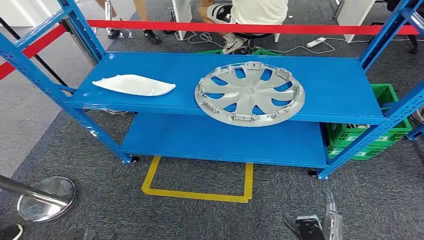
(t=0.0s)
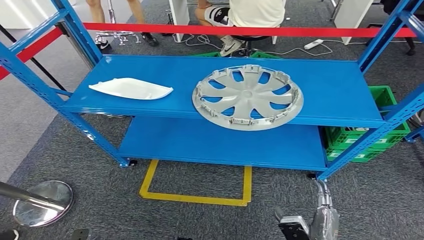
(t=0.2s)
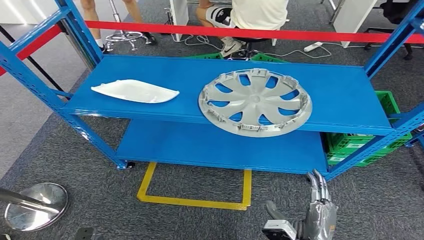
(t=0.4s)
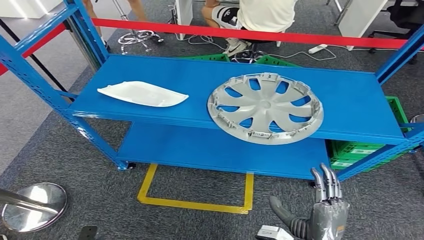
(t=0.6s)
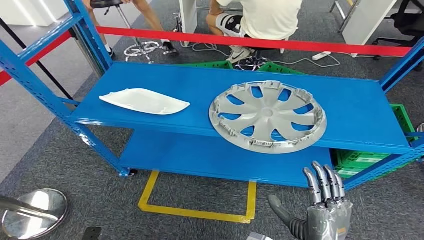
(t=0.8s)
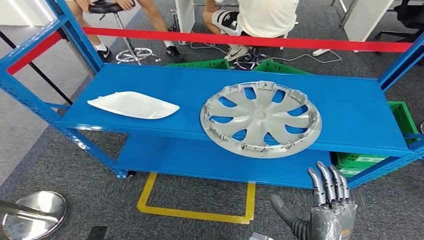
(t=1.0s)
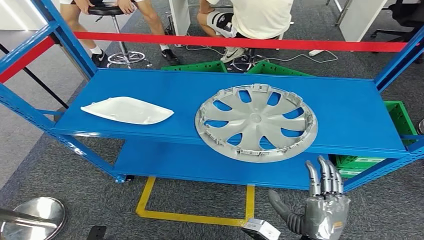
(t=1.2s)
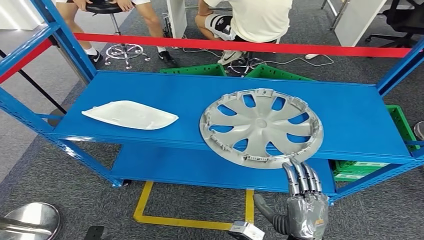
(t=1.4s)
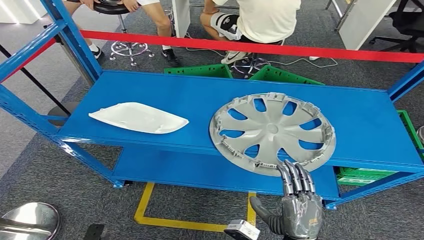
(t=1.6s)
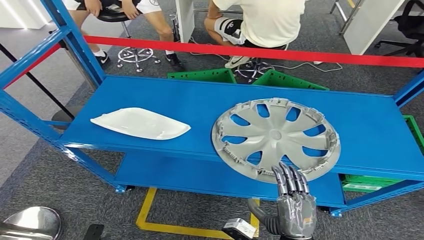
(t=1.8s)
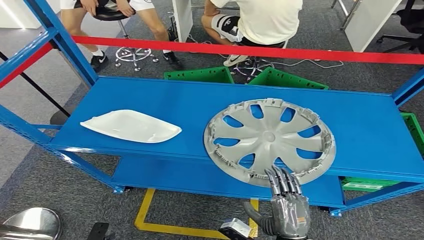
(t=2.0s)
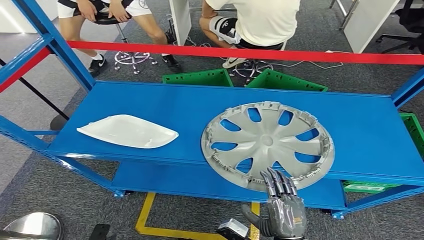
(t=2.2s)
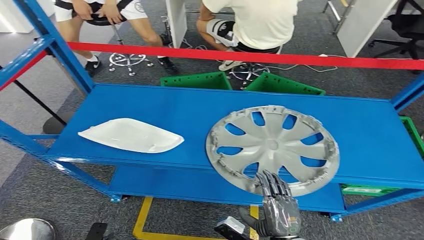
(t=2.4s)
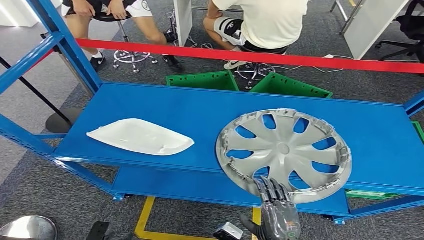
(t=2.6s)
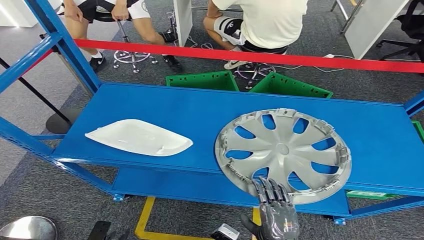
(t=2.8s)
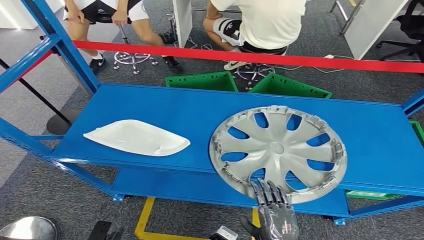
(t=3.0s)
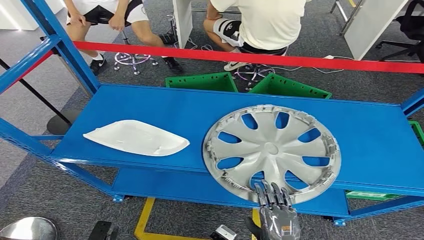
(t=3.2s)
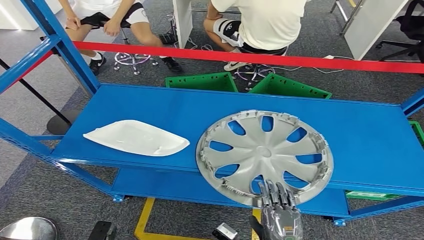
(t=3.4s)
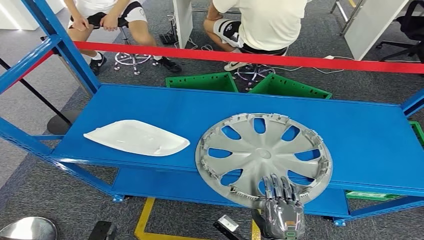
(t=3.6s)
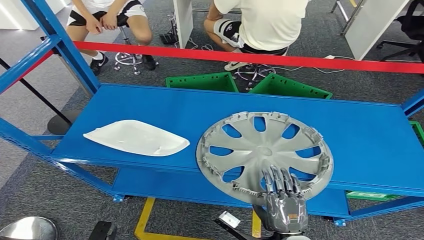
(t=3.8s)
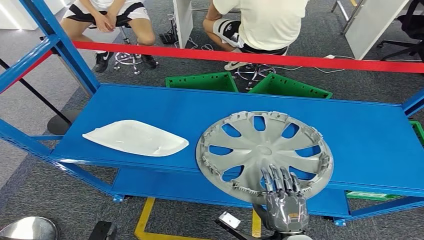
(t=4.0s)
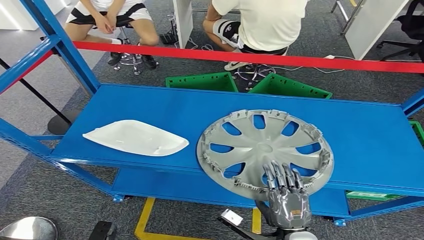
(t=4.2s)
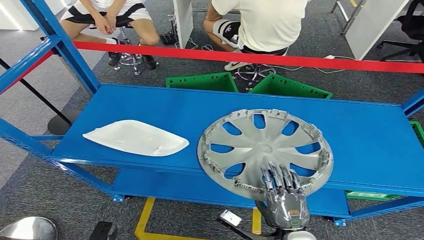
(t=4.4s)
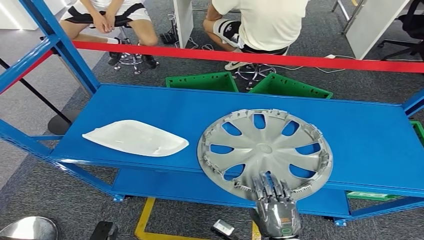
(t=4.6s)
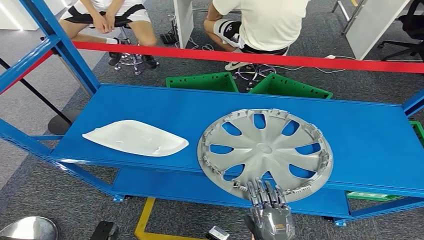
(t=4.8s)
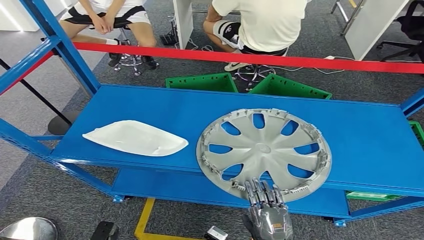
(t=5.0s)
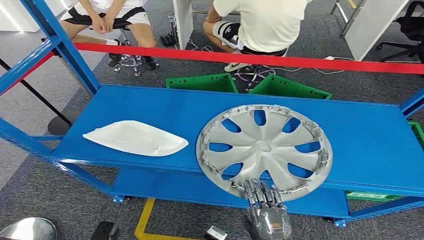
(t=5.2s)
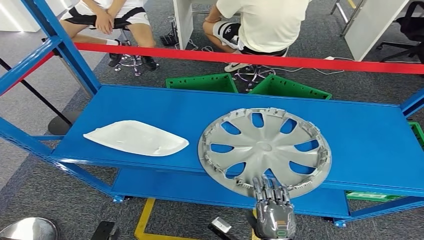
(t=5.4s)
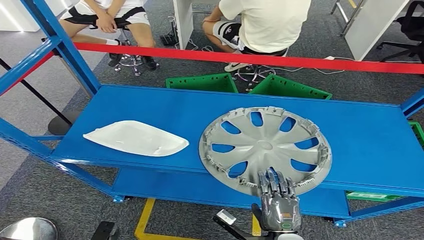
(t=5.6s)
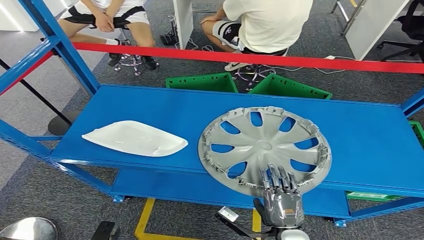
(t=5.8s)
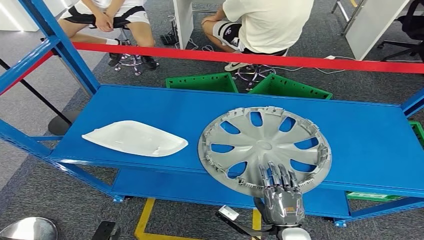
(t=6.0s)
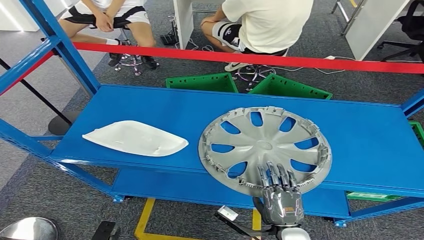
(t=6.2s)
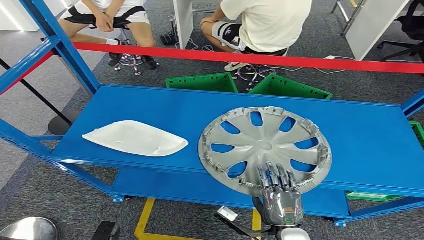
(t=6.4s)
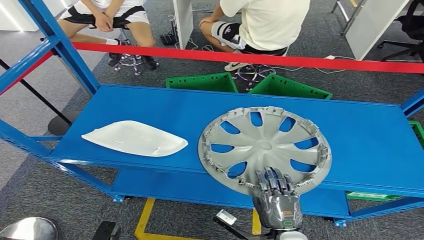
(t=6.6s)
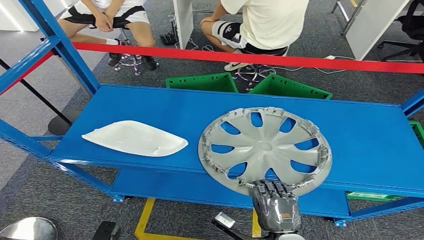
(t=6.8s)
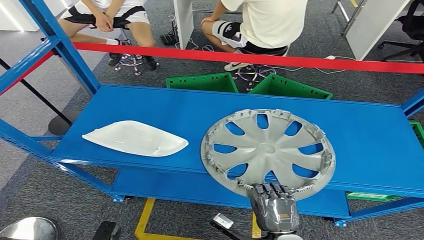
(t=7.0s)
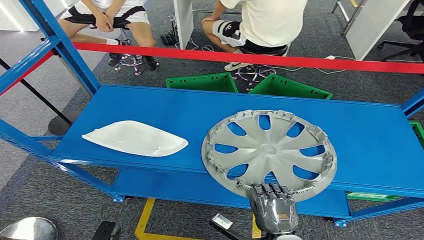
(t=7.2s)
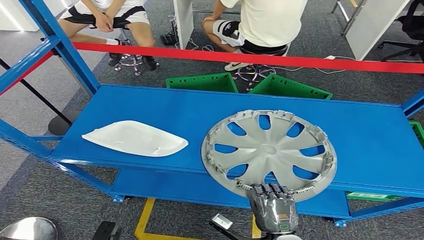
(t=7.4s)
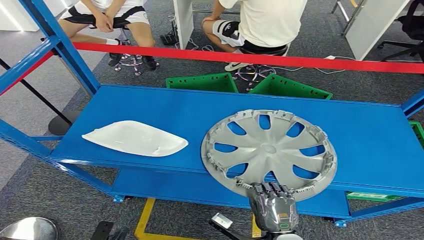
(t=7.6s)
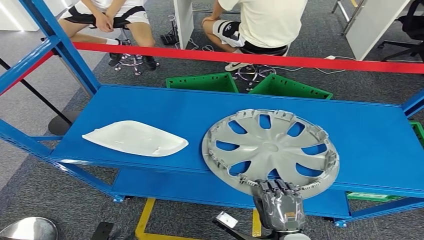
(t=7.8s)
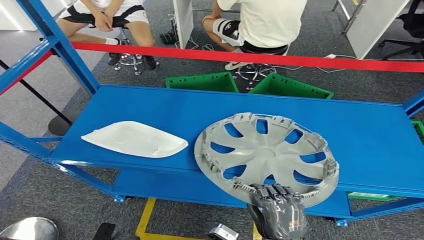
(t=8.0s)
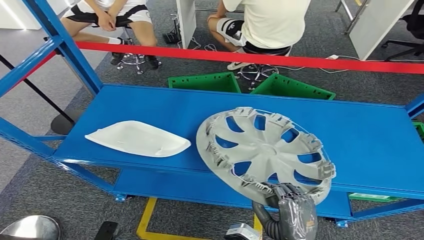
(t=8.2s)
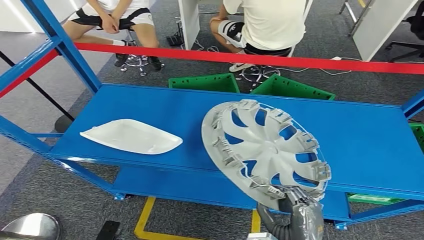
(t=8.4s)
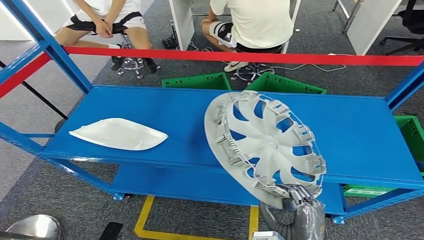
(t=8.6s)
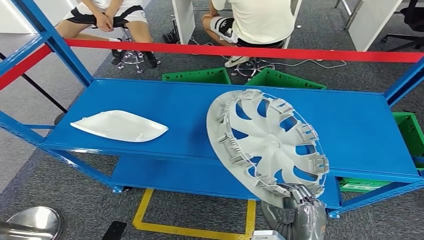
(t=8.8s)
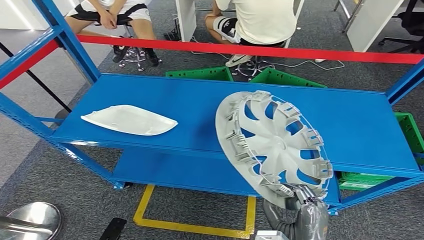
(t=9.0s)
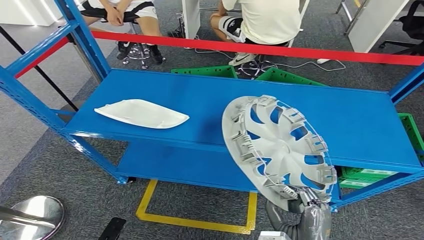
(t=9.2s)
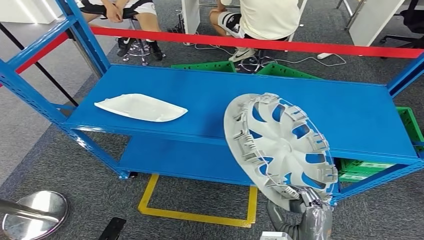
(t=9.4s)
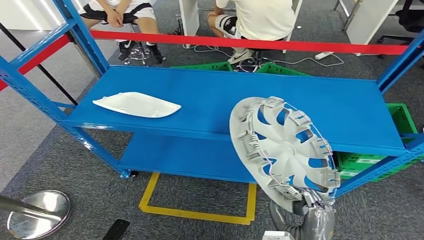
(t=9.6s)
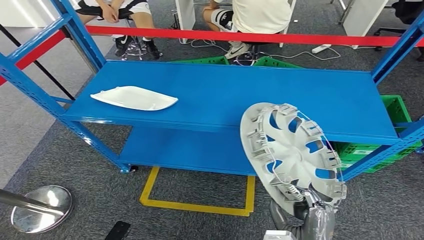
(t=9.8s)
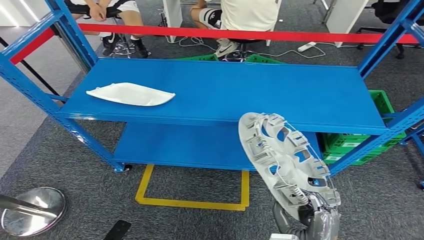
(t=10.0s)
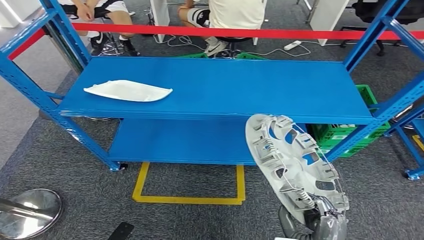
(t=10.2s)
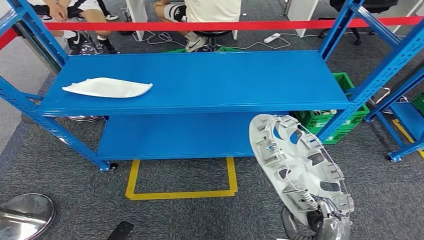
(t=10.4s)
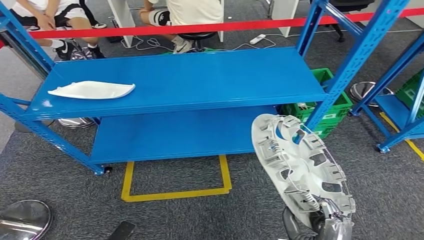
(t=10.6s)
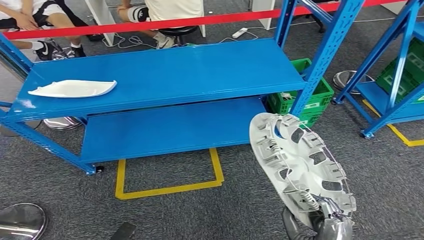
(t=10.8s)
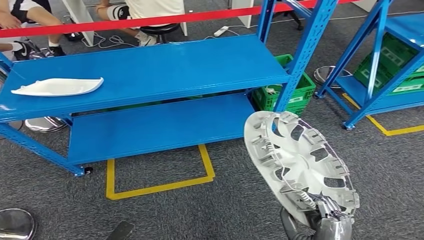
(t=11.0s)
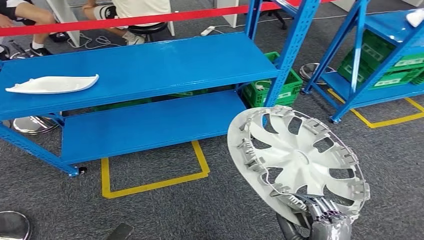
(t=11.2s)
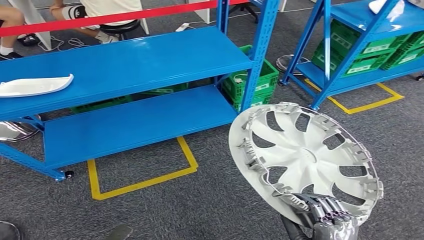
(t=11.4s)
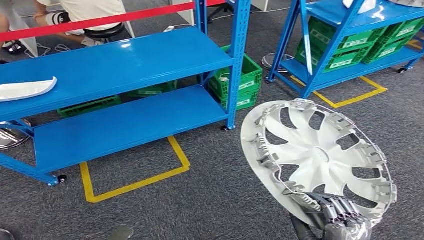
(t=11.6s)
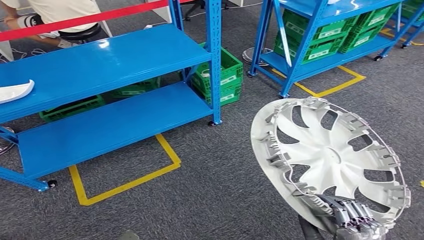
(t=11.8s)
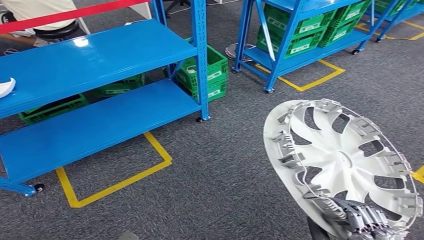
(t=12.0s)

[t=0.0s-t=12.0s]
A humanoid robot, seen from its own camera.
Step, t=0.0s to t=10.0s: Pick up the small component from the shelf.
t=3.0s to t=4.4s: The right hand changes place by roughly 5 cm.
t=4.4s to t=7.6s: There are only small adjustments of the hands.

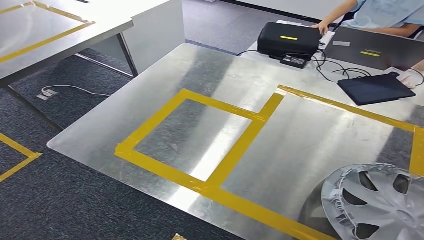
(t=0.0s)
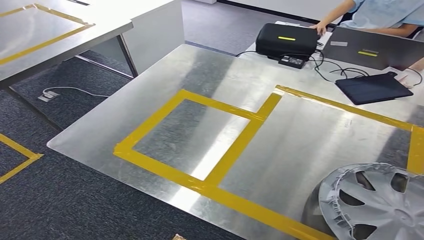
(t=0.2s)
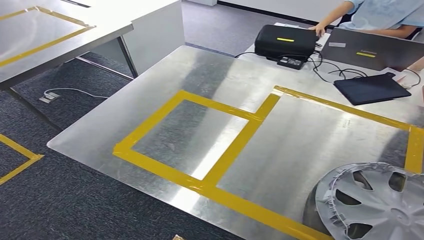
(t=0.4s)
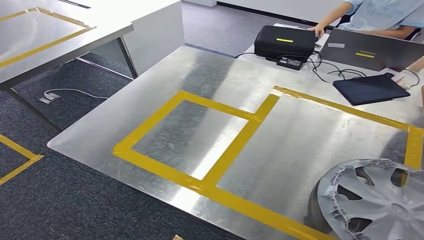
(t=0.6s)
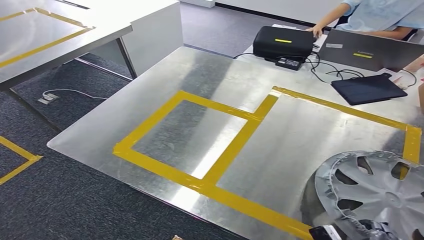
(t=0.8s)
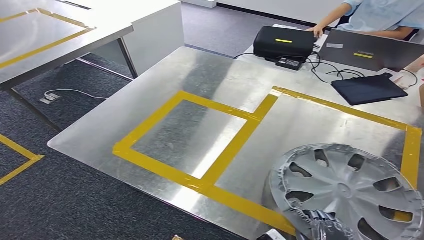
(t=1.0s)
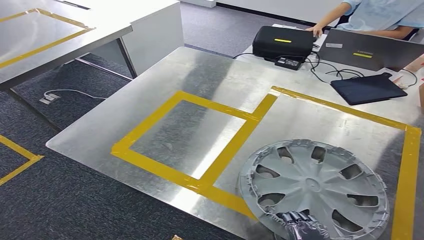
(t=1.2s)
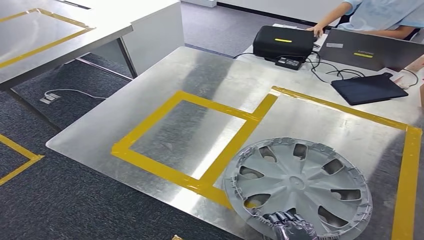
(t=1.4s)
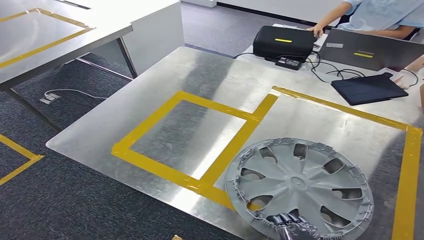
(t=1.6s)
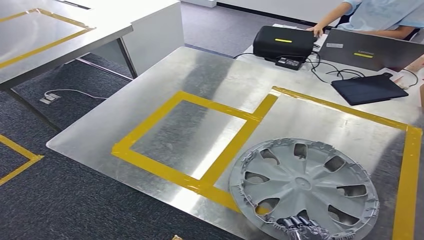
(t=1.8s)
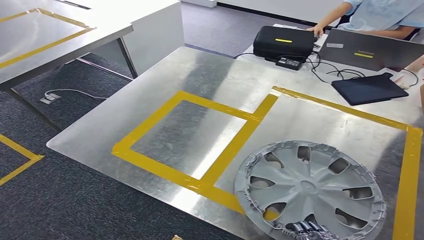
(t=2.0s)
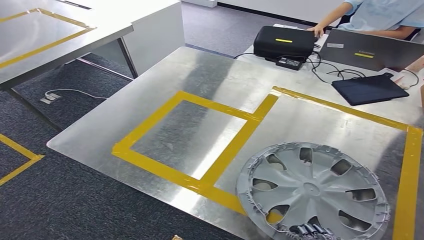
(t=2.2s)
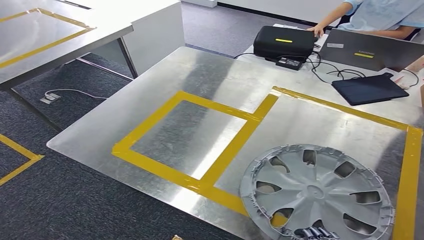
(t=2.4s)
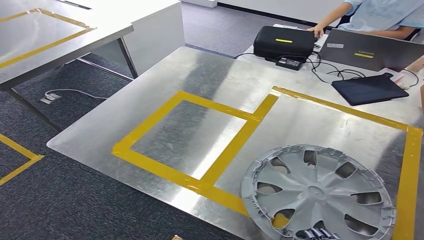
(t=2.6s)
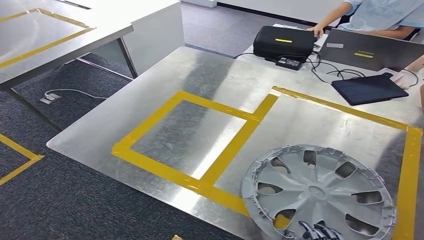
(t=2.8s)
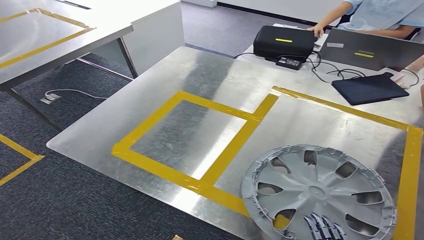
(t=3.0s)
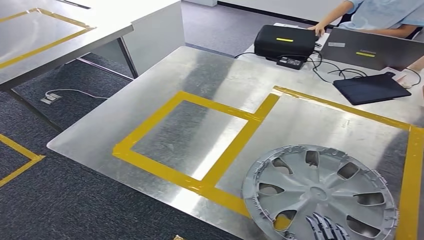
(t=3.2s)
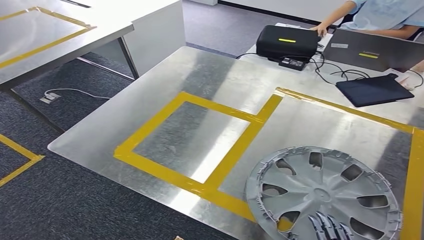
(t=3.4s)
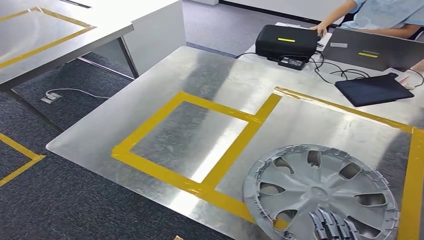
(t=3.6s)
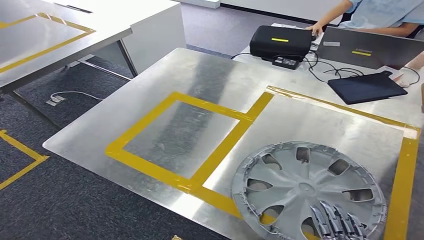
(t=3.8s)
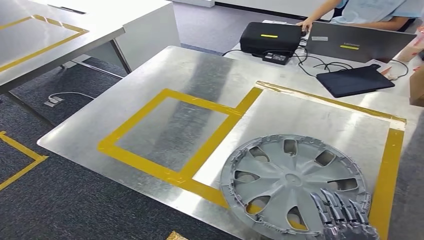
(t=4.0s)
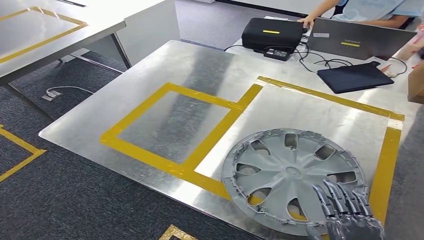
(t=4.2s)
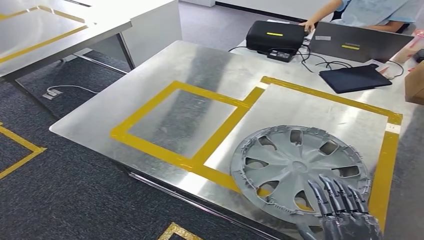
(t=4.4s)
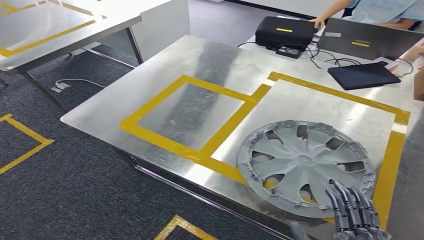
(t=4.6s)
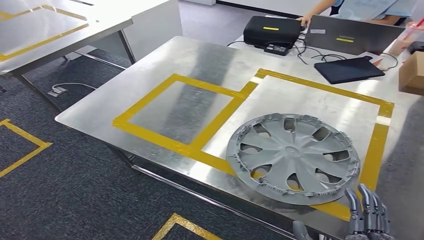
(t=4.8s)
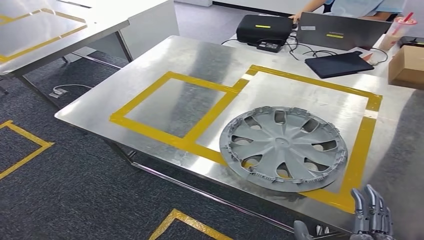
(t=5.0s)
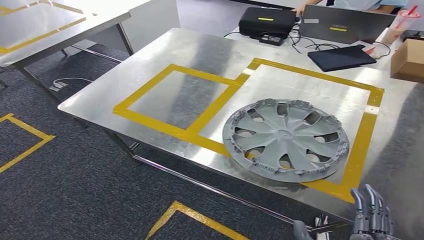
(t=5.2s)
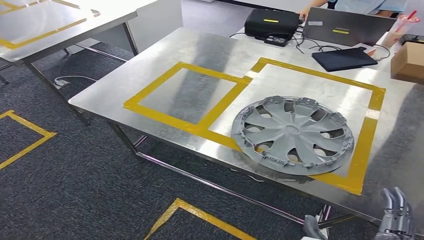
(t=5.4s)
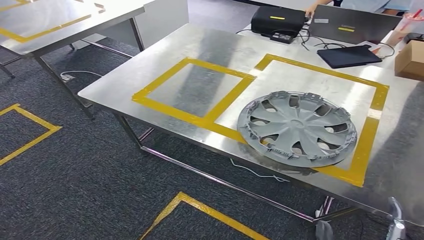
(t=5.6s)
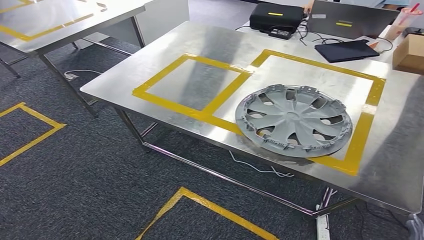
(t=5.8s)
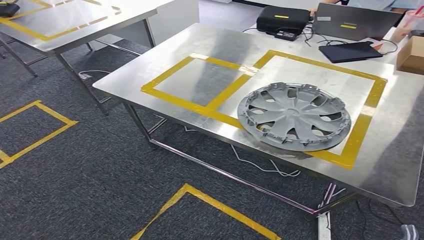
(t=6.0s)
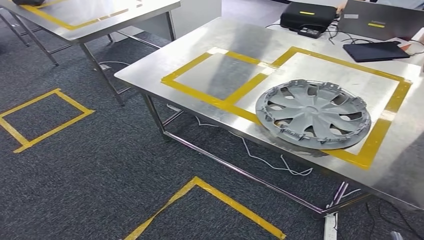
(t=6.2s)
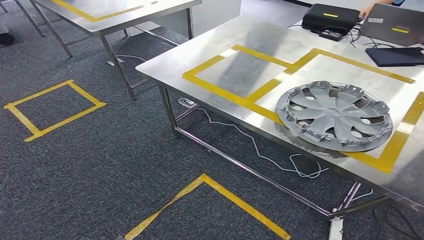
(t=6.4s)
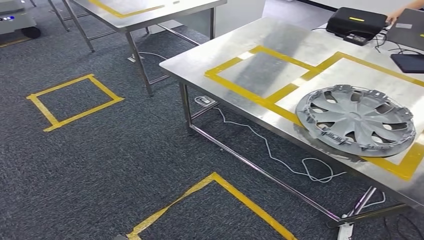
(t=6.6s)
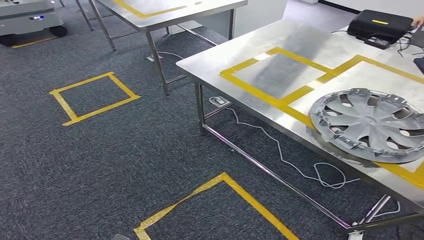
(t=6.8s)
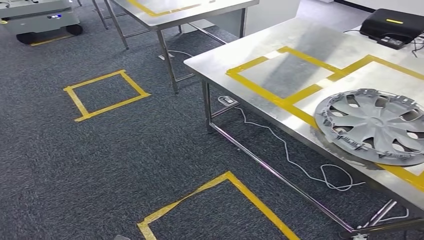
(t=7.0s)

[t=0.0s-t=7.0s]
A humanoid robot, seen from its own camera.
Step, t=0.6s to t=6.4s: Insert the small component into the corresponding slot on the workbench.
t=1.4s to t=2.8s: The right hand goes about 5 cm to the right.
